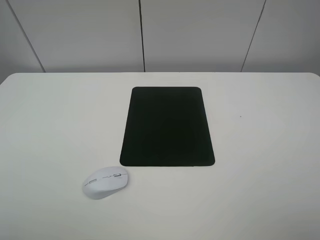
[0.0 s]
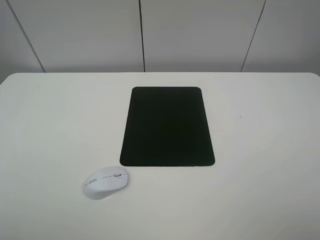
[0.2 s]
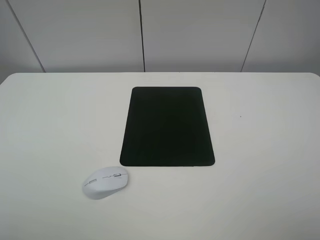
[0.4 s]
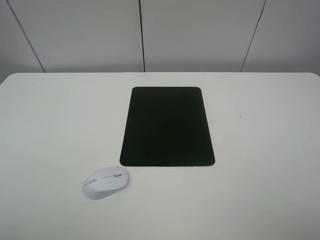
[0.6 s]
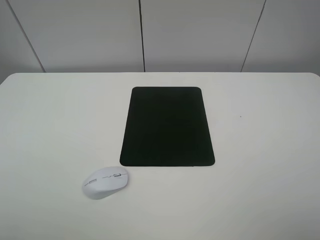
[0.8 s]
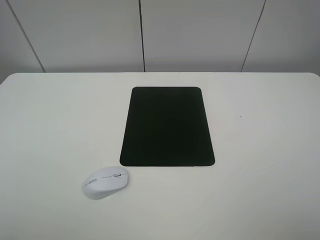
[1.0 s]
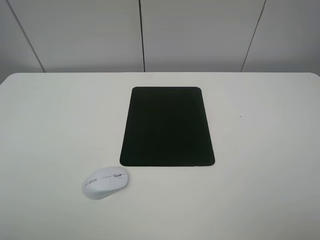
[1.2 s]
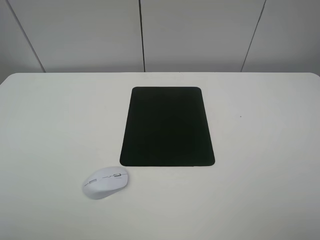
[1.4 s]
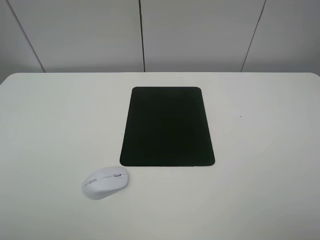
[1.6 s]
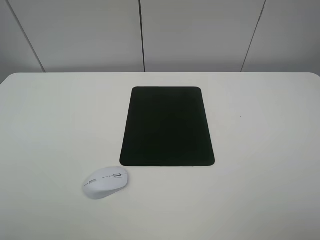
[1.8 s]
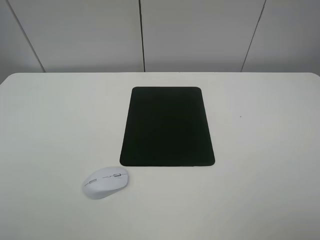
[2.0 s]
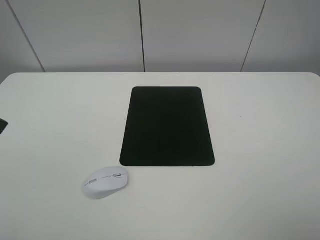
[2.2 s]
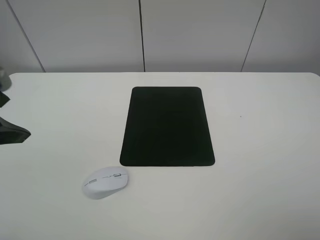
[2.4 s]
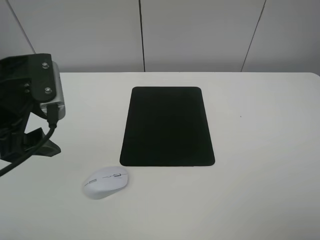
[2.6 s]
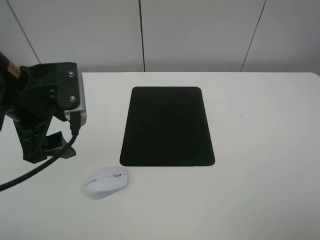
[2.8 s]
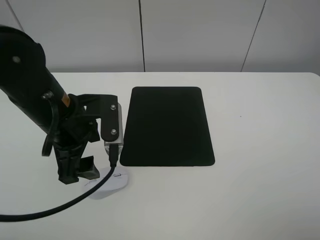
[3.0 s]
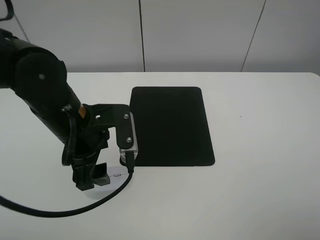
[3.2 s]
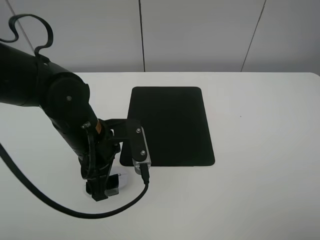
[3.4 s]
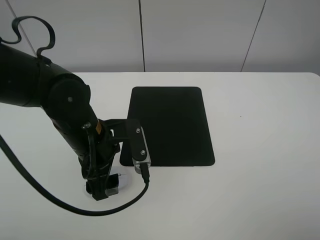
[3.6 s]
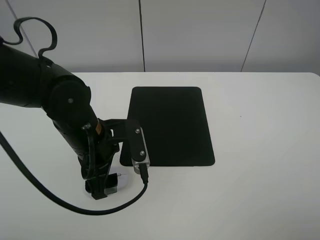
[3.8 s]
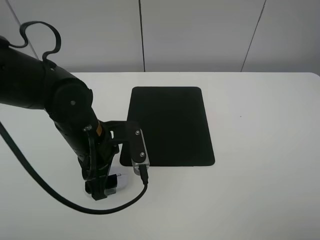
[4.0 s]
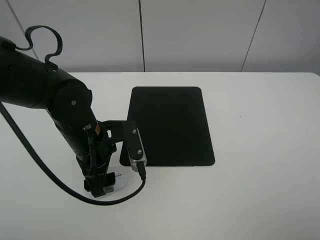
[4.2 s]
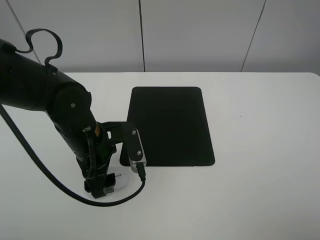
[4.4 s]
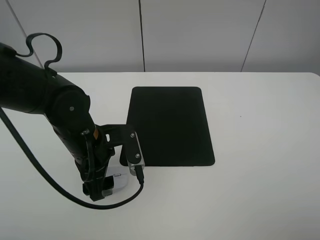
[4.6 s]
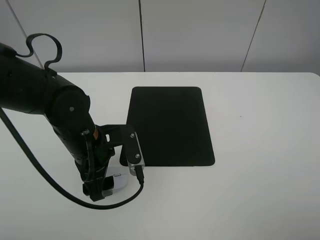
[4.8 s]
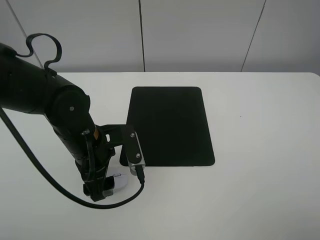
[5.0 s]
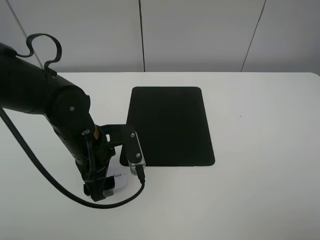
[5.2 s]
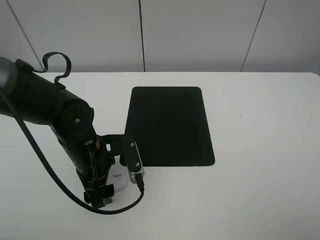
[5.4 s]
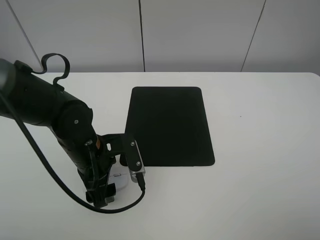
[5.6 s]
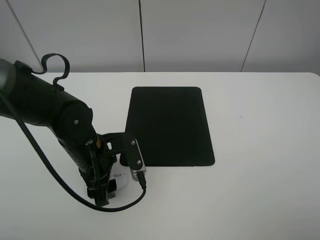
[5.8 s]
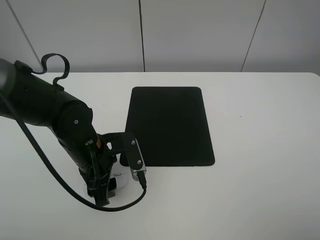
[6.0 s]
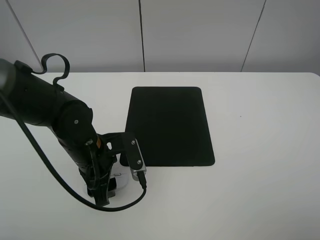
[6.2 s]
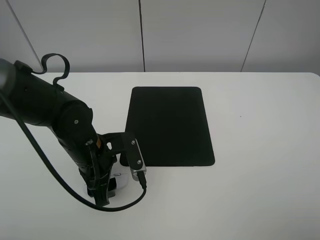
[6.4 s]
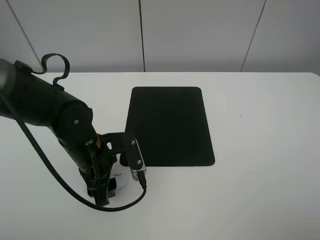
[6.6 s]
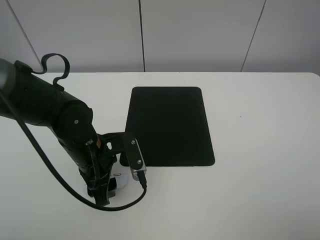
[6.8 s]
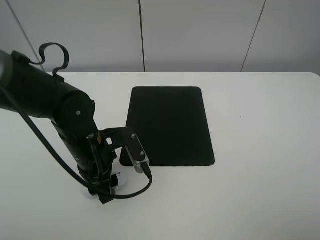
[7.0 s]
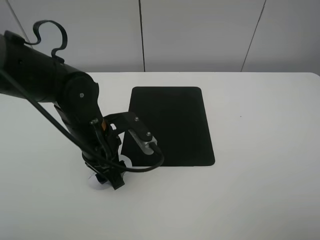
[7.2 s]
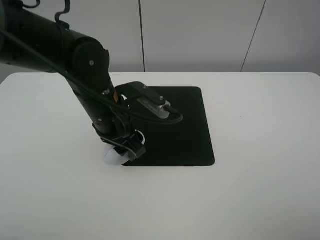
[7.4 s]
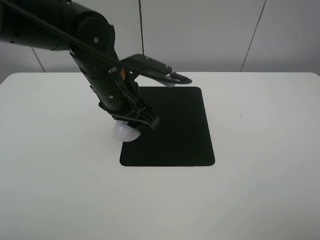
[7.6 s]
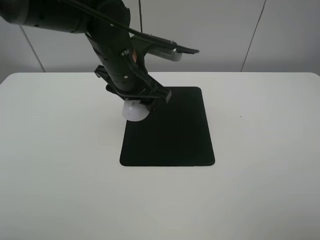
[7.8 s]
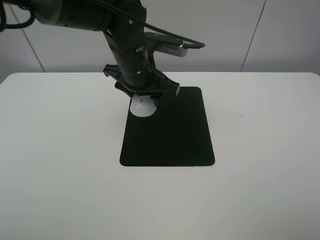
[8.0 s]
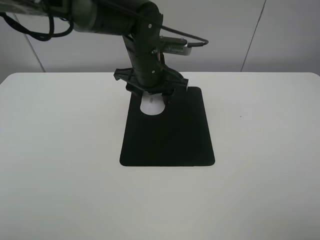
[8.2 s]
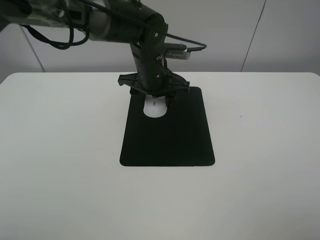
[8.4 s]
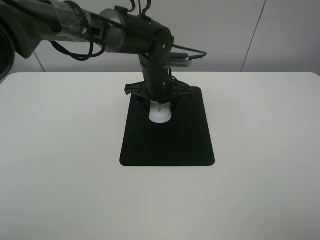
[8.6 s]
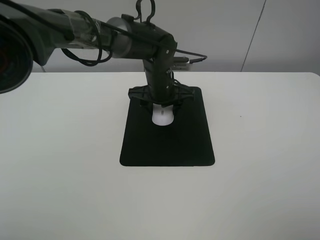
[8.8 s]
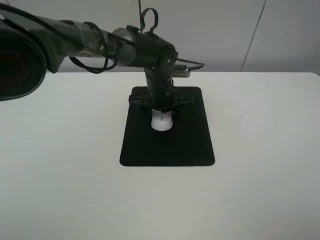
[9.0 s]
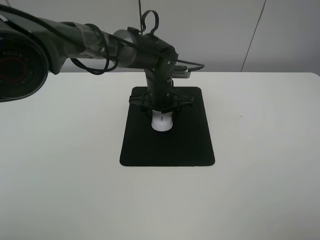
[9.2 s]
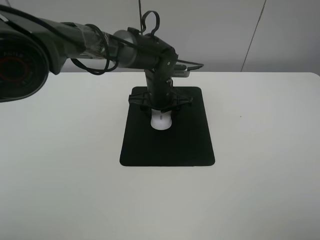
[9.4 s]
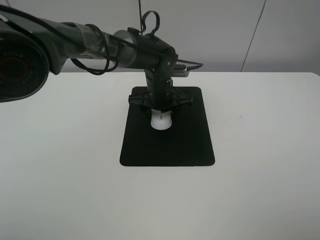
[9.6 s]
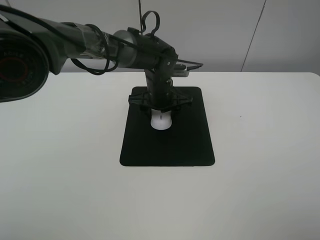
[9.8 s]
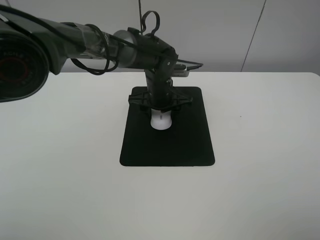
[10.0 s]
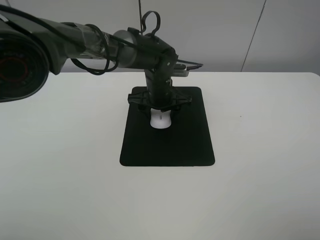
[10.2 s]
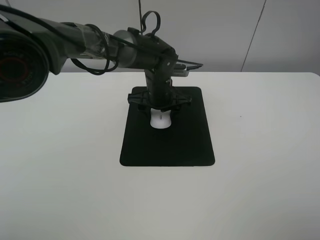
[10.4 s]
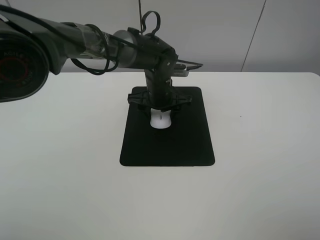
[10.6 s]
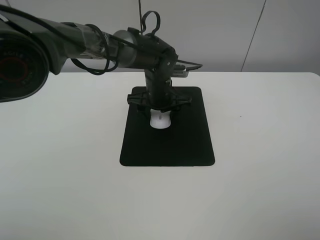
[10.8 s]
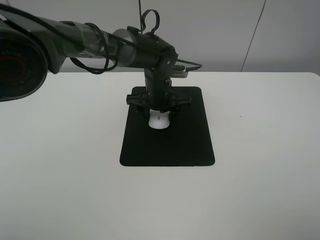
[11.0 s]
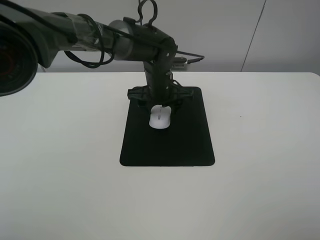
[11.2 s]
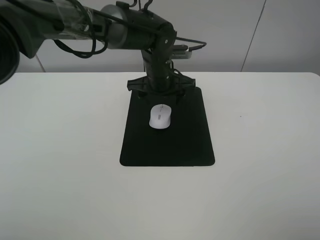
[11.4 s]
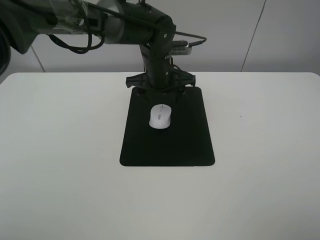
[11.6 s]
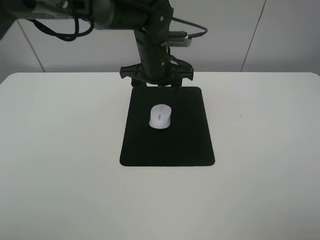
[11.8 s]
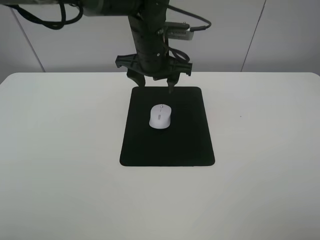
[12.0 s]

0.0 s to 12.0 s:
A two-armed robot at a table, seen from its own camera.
Step, 0.0 to 6.2 s: Grasp the mouse with the left gripper.
Step, 6.4 to 10.2 s: Place the mouse on the mouse mat with the left gripper.
1.6 to 3.0 s: The left gripper heads forward, to the right and downward, covering some 25 cm.
3.0 to 4.4 s: The left gripper travels downward by roughly 5 cm.
4.4 to 6.0 s: The left gripper closes up.
6.0 to 7.6 s: The left gripper is displaced upward, forward and to the right by some 15 cm.
7.6 to 9.0 s: The left gripper moves forward, downward and to the right, approximately 15 cm.
9.0 to 10.4 s: Both grippers stay put.
10.4 to 12.0 s: The left gripper moves upward, roughly 10 cm.

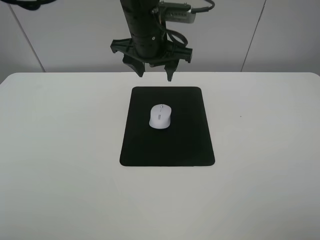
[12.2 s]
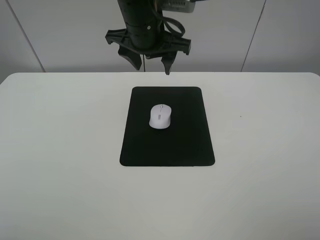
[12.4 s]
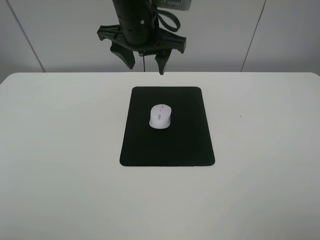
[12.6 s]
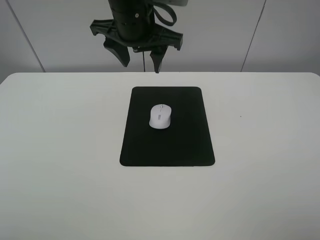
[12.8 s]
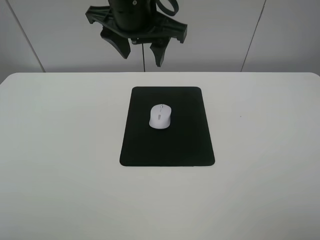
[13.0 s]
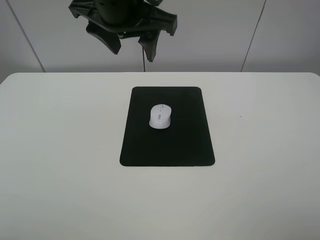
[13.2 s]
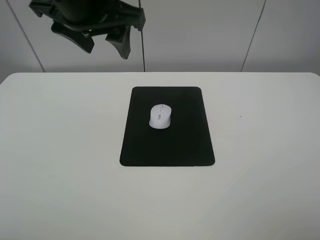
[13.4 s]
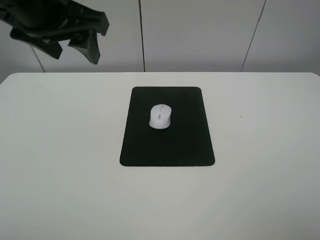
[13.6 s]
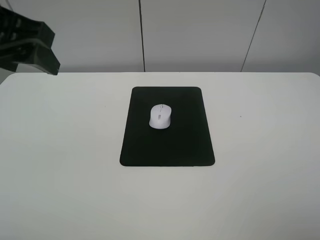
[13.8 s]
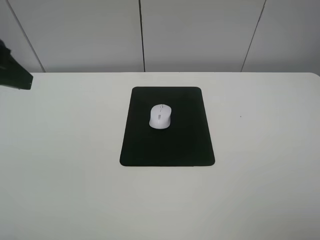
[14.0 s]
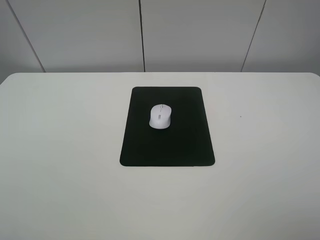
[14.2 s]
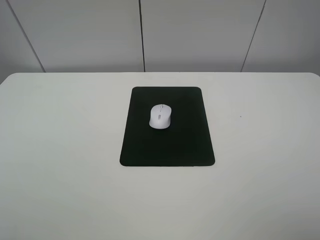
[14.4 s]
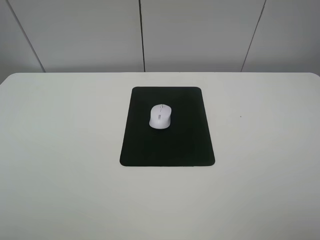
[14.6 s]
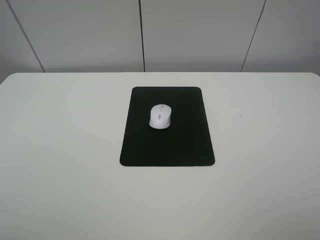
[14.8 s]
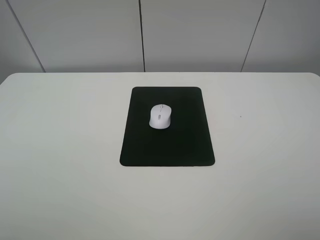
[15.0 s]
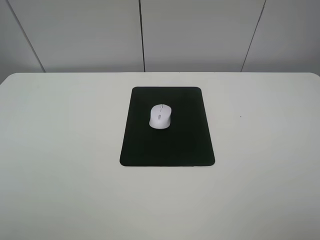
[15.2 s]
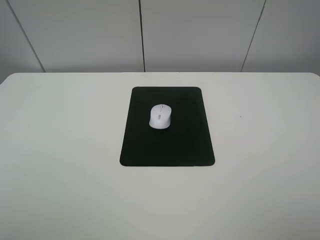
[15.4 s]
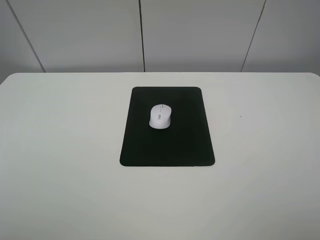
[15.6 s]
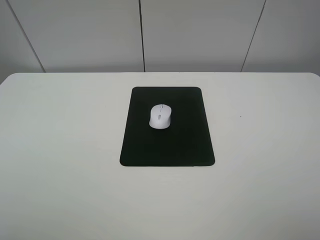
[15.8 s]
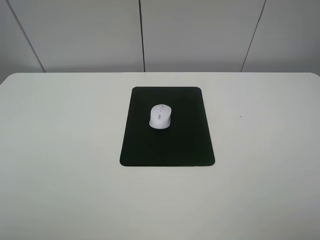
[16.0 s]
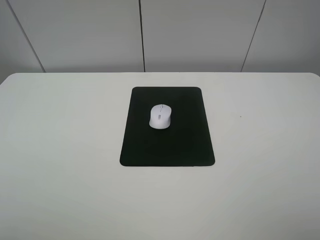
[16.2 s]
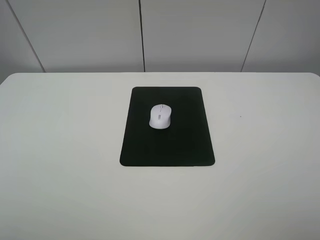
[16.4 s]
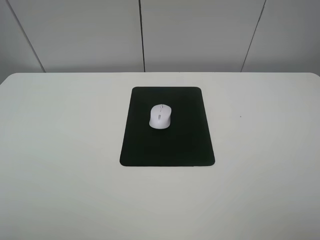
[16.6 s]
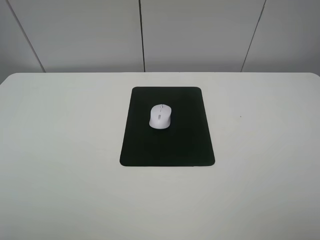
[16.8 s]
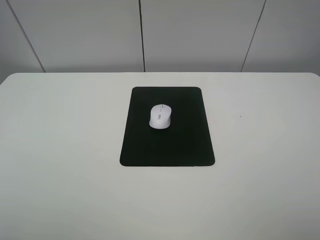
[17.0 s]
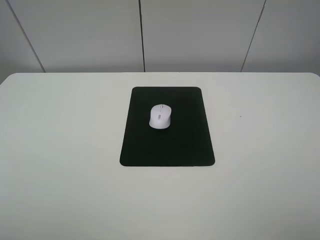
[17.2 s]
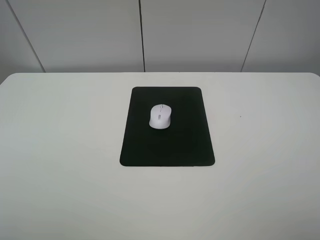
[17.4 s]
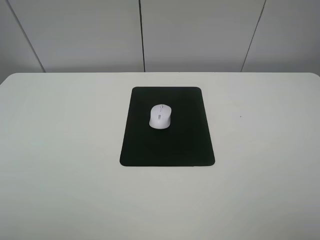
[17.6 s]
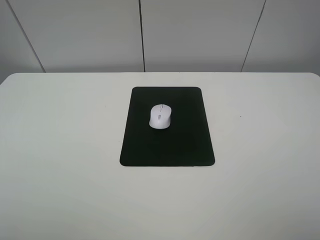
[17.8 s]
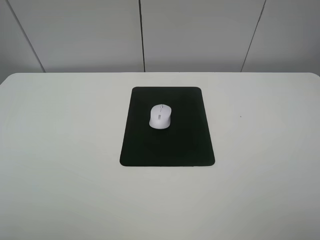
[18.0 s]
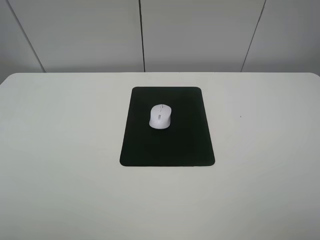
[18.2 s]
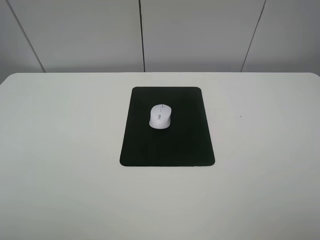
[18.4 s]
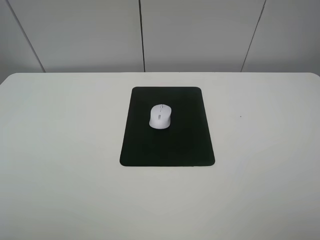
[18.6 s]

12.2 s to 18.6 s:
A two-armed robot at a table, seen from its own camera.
12.2 to 13.8 s: The left gripper travels to the left, backward and upward by approximately 25 cm.
13.8 to 15.4 s: The left gripper travels backward, to the left and downward by about 20 cm.
17.0 to 18.6 s: Both grippers stay put.
